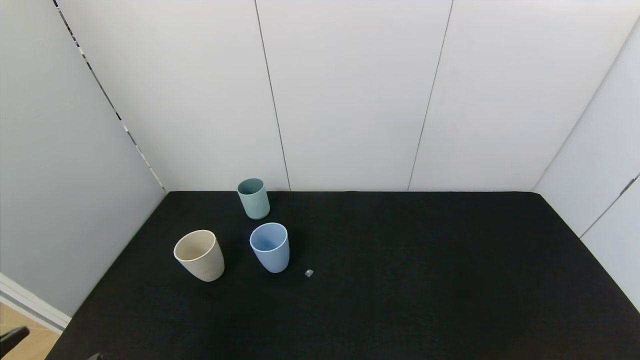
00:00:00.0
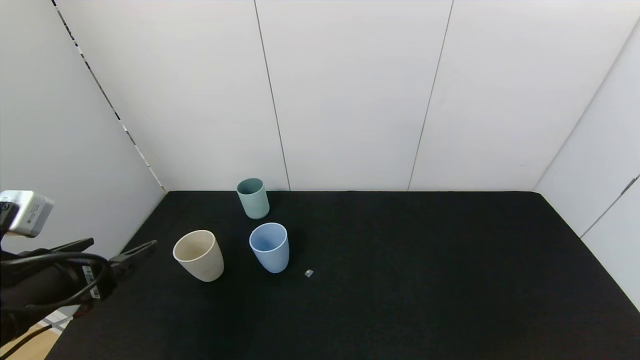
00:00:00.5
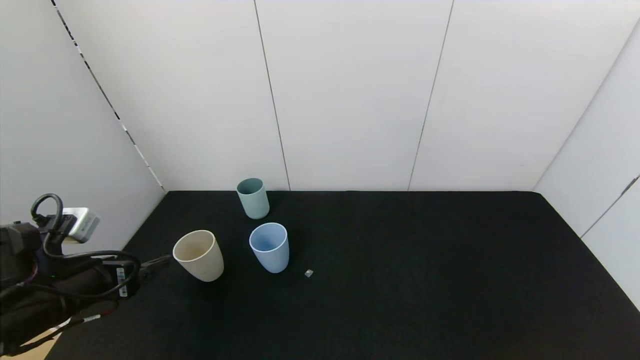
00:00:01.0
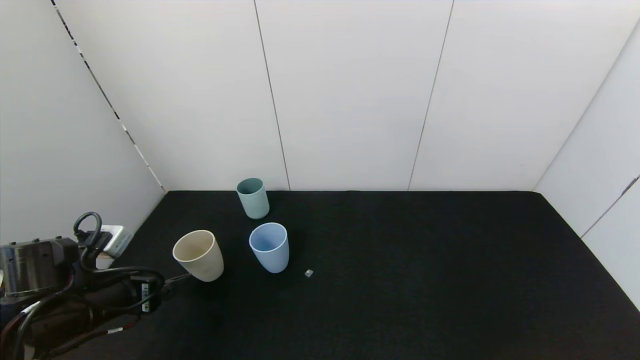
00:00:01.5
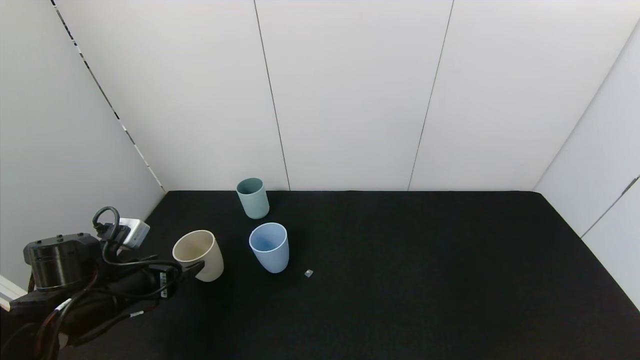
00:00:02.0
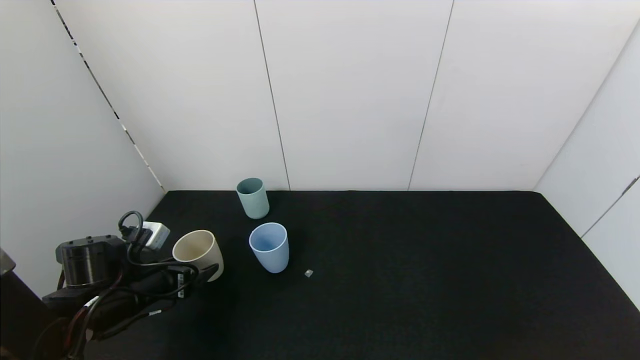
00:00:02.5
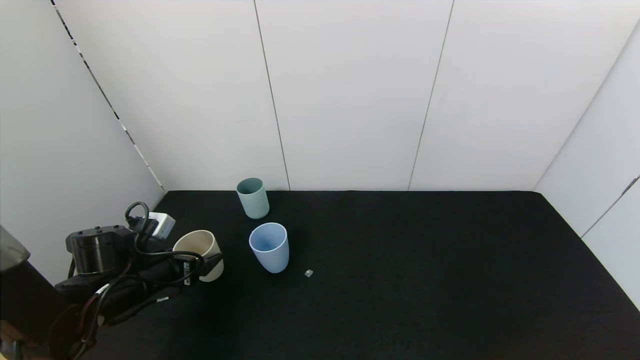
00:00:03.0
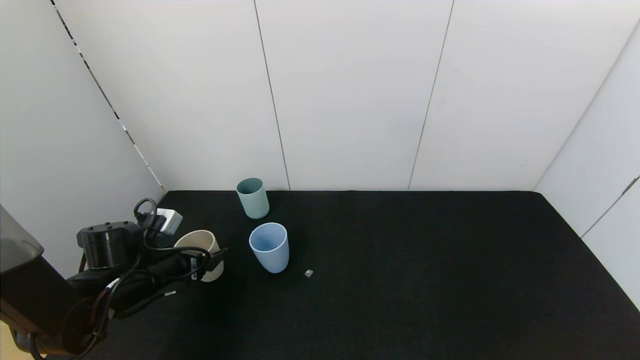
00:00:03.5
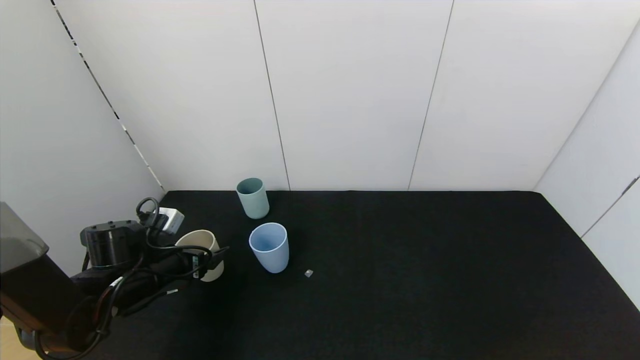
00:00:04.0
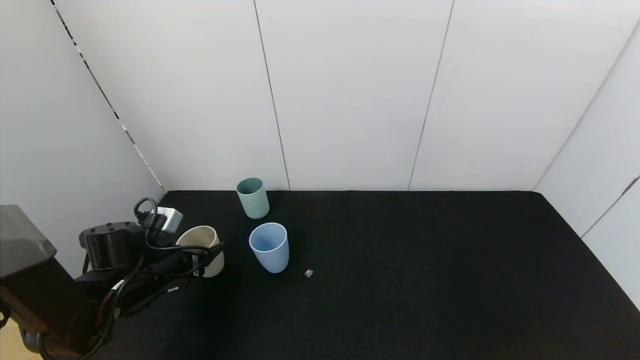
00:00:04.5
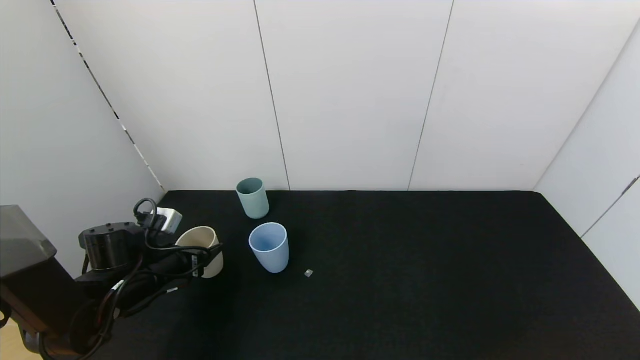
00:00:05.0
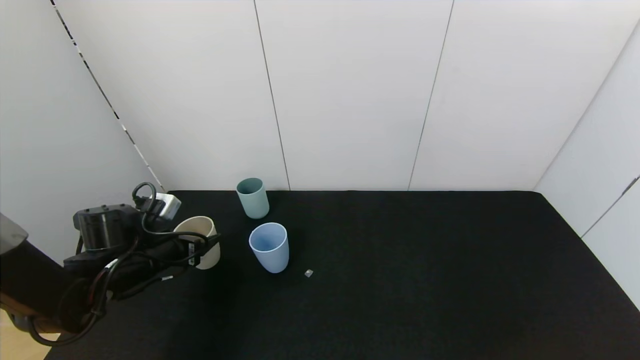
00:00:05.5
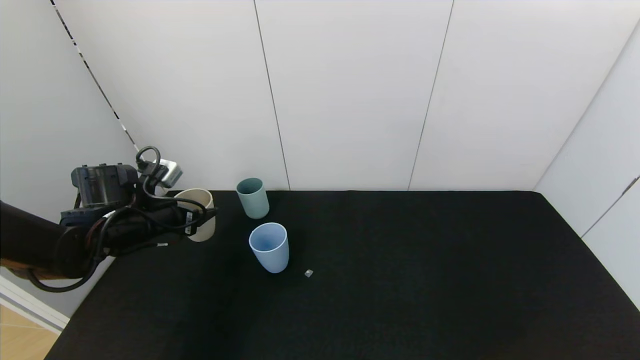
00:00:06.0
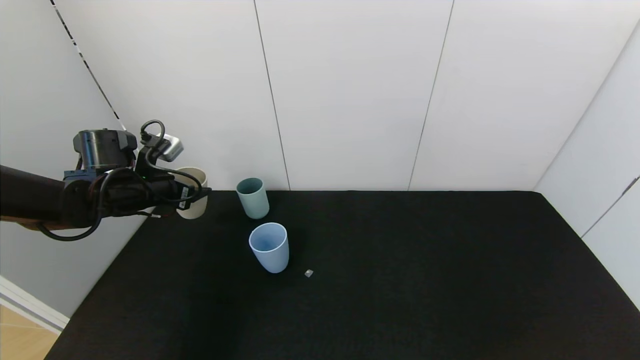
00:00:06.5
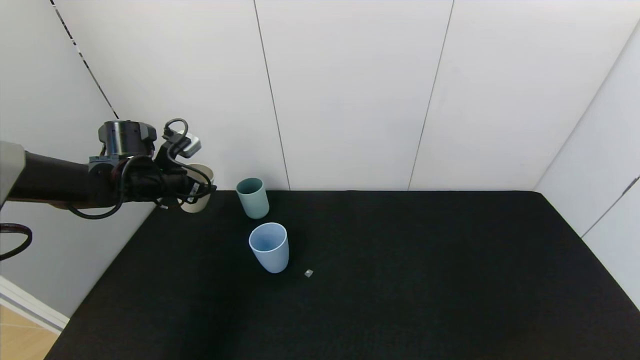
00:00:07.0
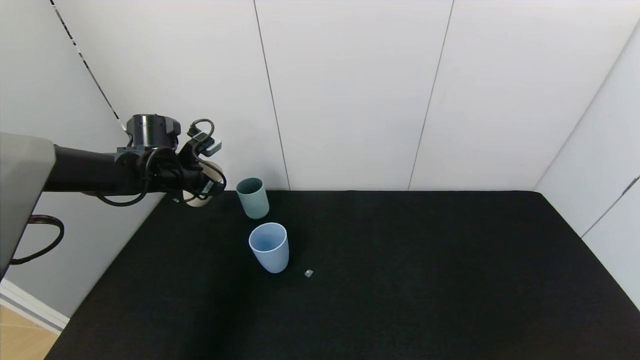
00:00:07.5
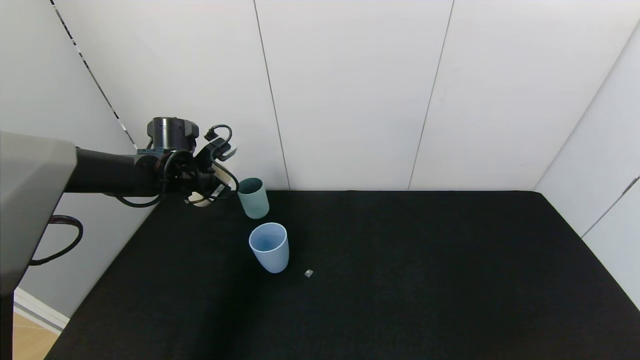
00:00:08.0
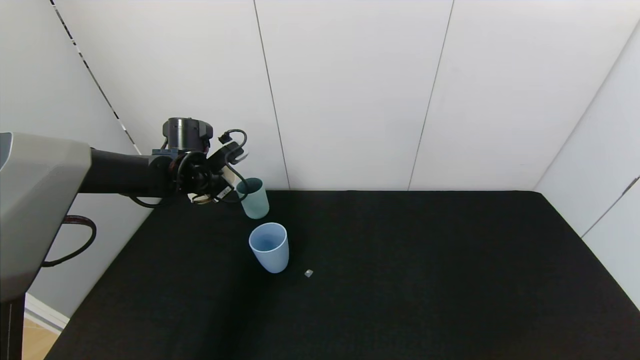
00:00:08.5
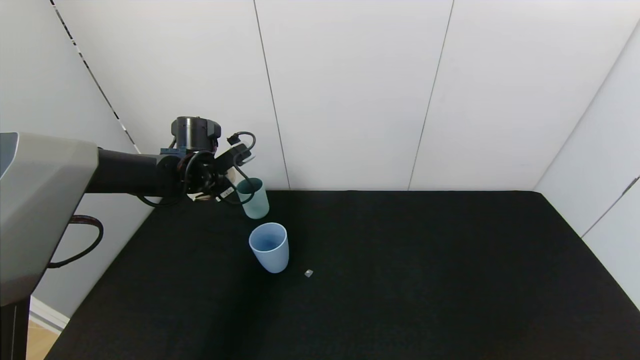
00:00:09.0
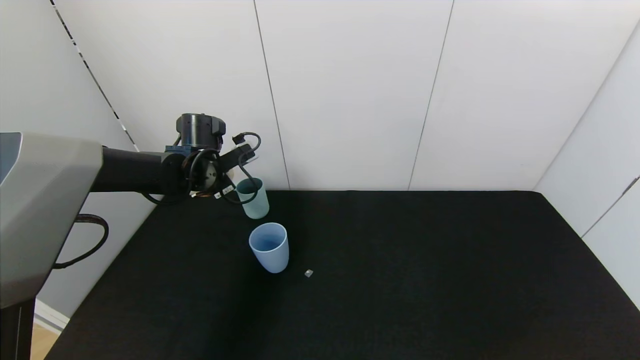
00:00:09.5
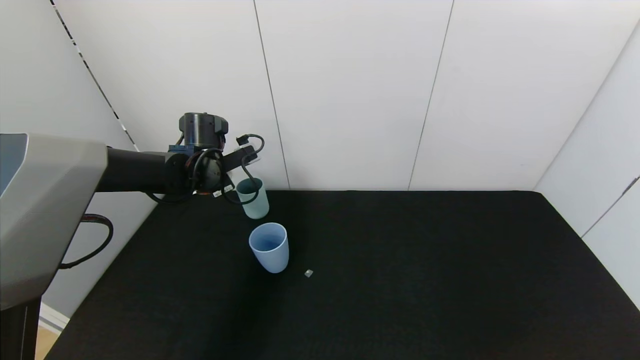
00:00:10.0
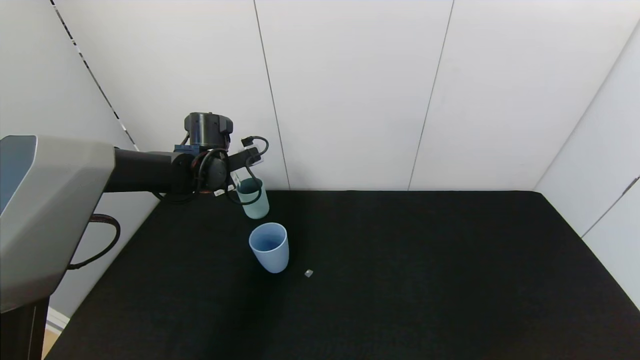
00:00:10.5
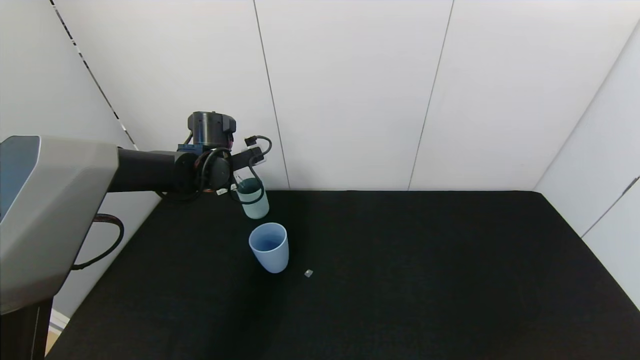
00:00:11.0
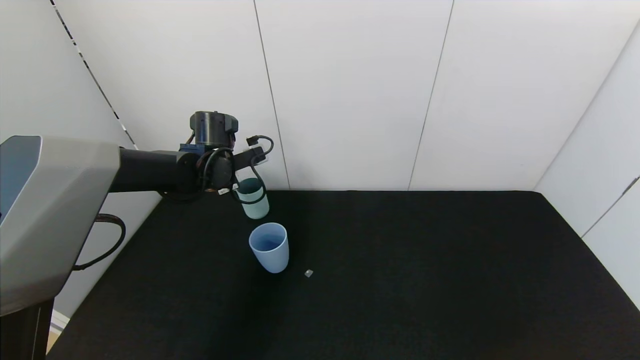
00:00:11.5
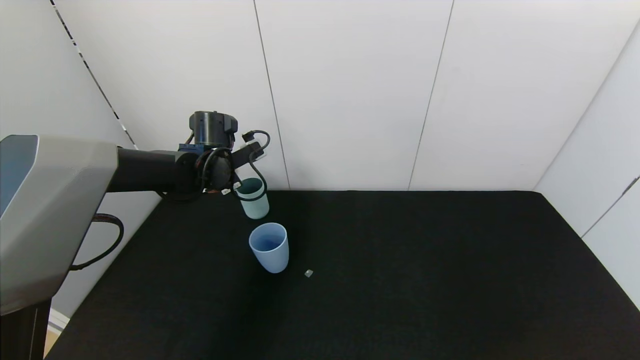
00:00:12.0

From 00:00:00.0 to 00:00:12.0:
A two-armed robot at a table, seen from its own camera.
Task of the whole recording: use the gripper to pour the water into the other two cups on black table.
Step, from 00:00:00.0 to 00:00:04.0: Grasp the white cup with the left gripper.
From 00:00:00.0 to 00:00:02.0: The left gripper shifts approximately 20 cm forward.
From 00:00:02.0 to 00:00:04.0: The left gripper travels forward by some 5 cm.
From 00:00:04.0 to 00:00:06.0: The left gripper is displaced upward by some 10 cm, and closes up.
From 00:00:06.0 to 00:00:08.0: The left gripper goes about 10 cm forward.
From 00:00:10.0 to 00:00:12.0: The grippers stay close to where they were, moving slightly.

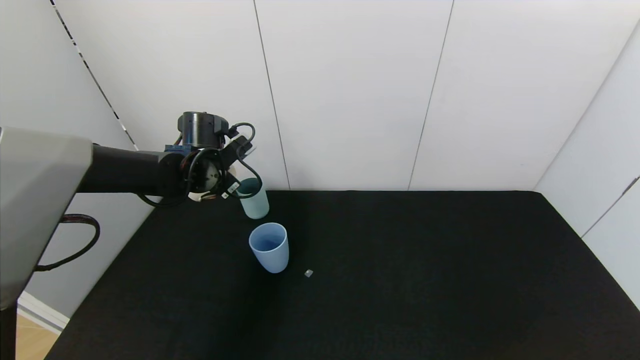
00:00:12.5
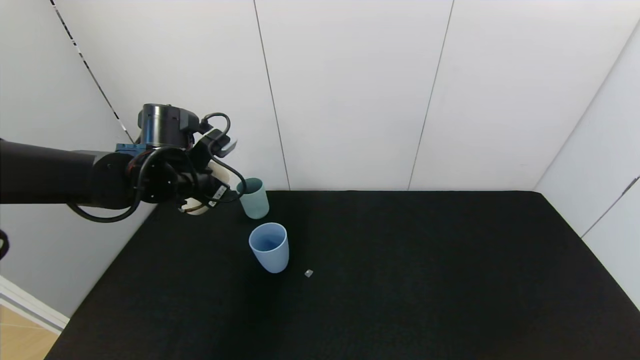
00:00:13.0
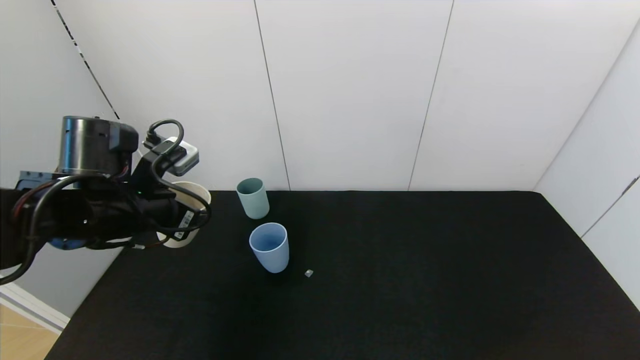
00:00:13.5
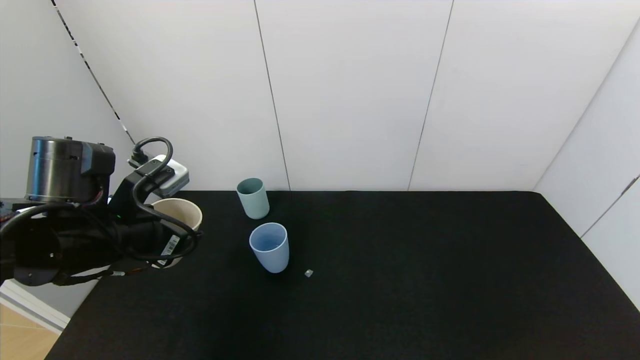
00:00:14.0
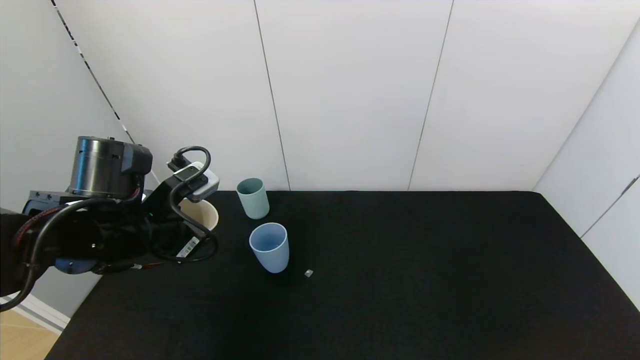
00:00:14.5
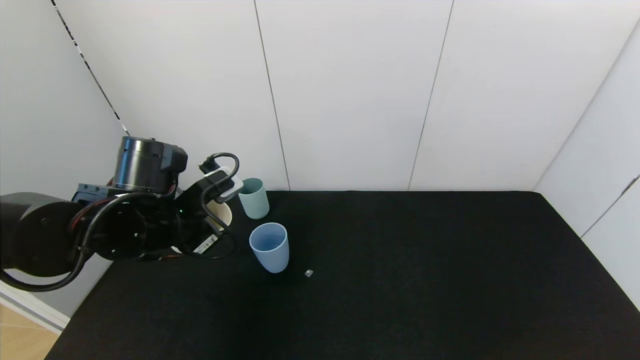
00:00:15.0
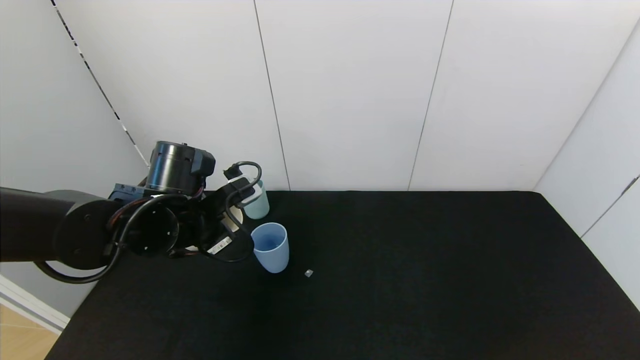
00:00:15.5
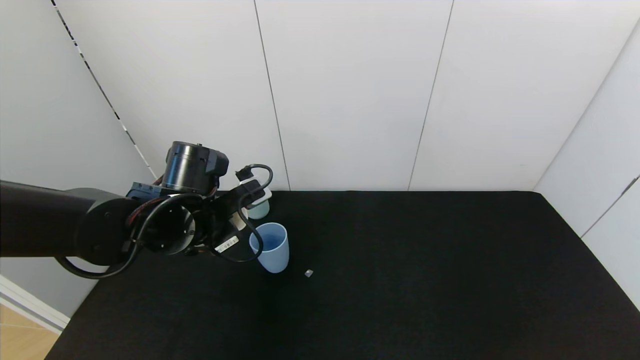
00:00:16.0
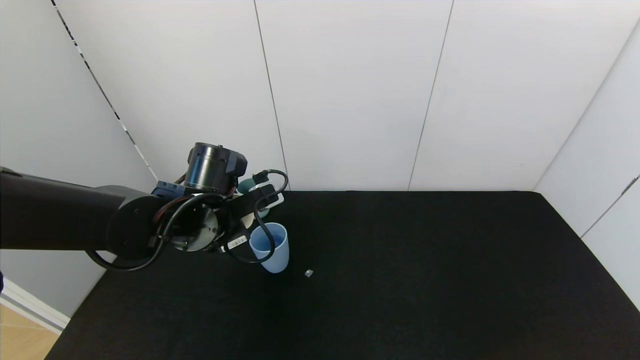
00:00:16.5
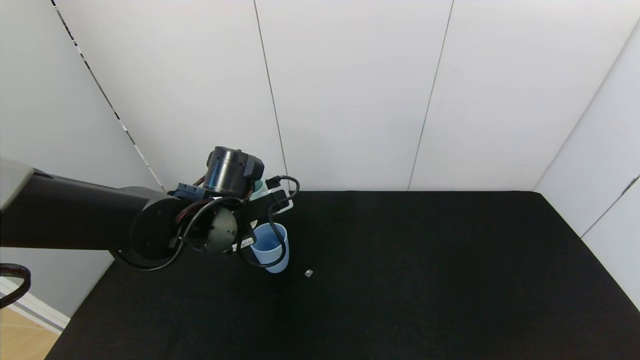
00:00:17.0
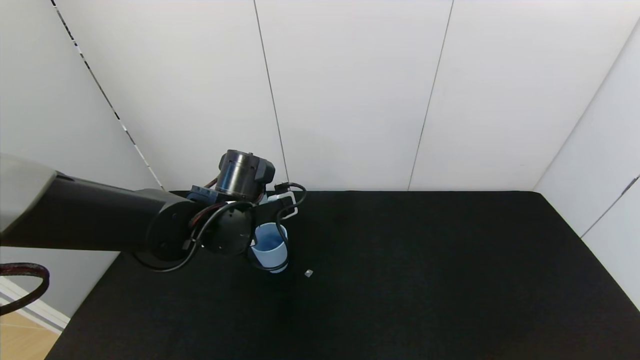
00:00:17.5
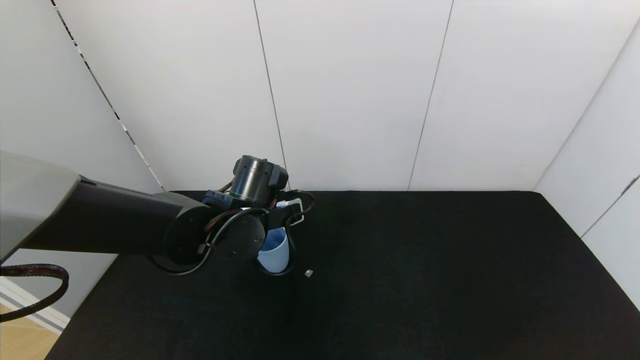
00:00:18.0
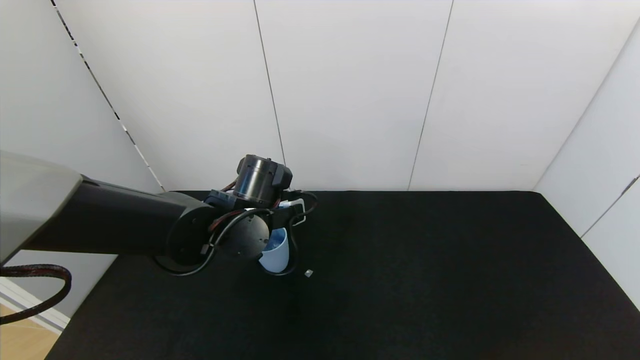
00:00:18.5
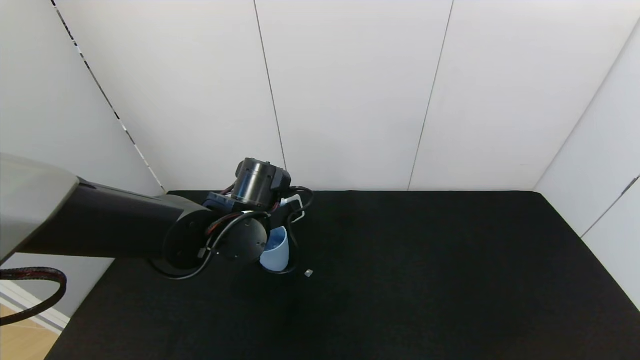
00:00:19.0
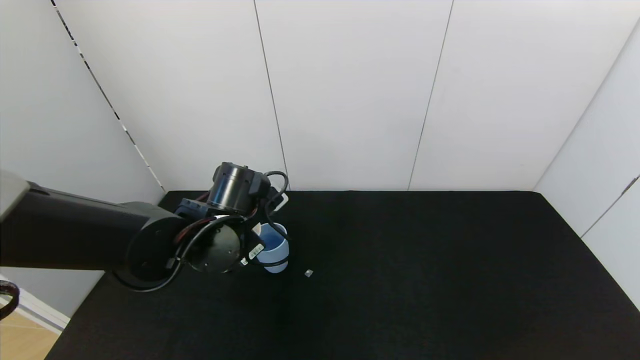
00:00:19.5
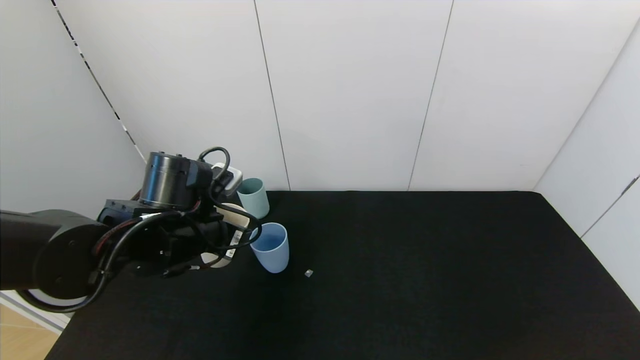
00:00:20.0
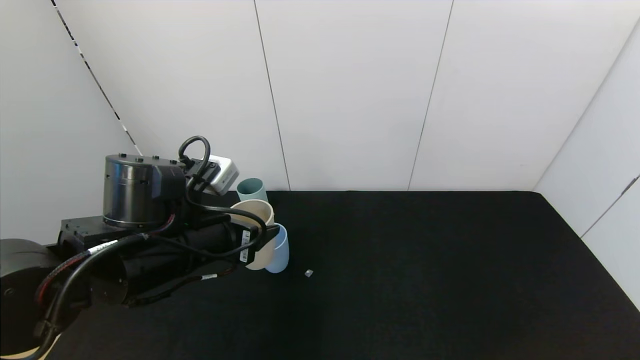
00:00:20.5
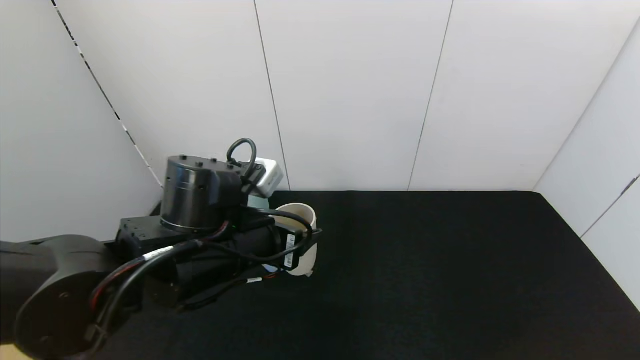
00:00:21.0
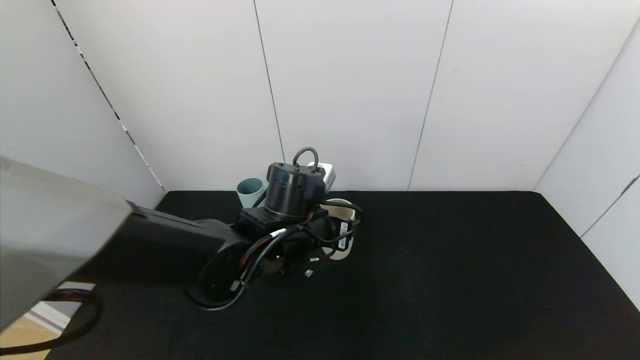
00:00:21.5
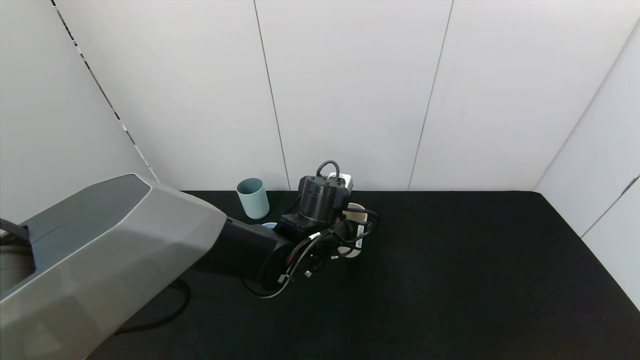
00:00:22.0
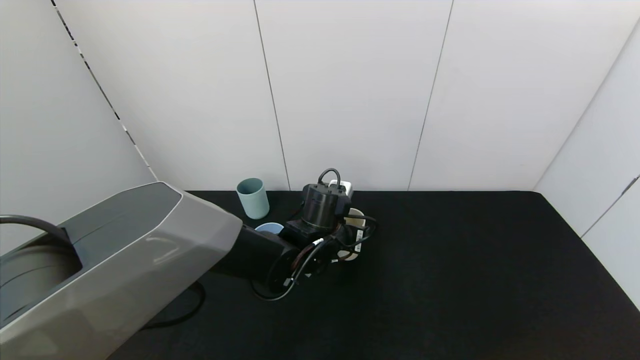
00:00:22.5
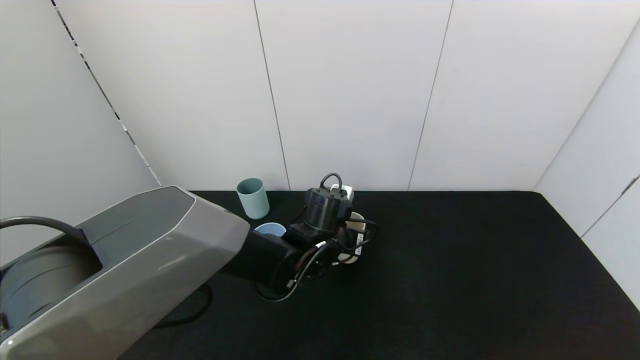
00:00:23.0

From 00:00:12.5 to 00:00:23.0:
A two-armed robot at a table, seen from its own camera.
Task of the whole recording: use the gripper to pour the water into the other two cups on black table.
Step, from 00:00:13.0 to 00:00:19.5: Pour water from white cup to blue cup with the left gripper.
From 00:00:12.5 to 00:00:14.5: The left gripper travels backward by approximately 15 cm.
From 00:00:14.5 to 00:00:16.5: The left gripper heads to the right and forward, covering some 10 cm.
From 00:00:19.0 to 00:00:21.0: The left gripper travels backward by roughly 5 cm.
From 00:00:21.0 to 00:00:23.0: The left gripper heads forward, downward and to the right, covering about 20 cm.
